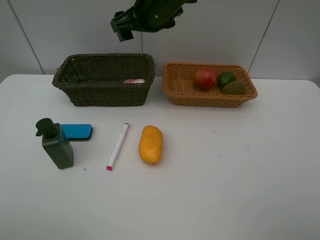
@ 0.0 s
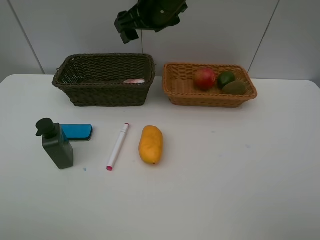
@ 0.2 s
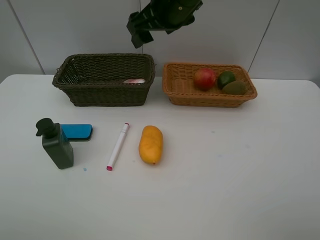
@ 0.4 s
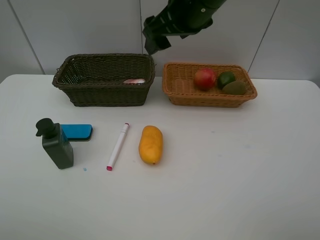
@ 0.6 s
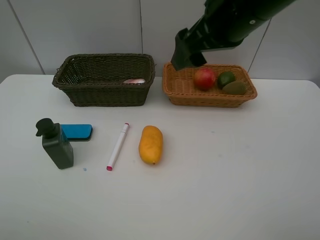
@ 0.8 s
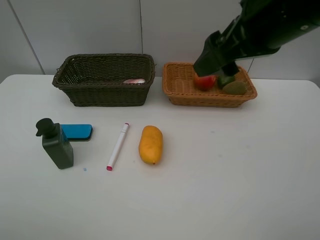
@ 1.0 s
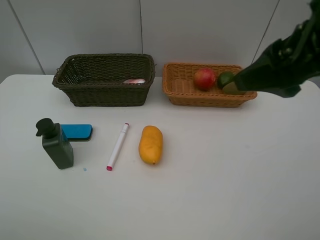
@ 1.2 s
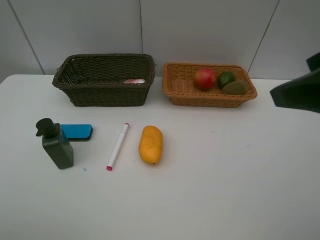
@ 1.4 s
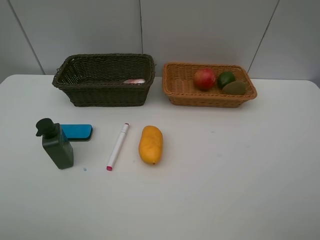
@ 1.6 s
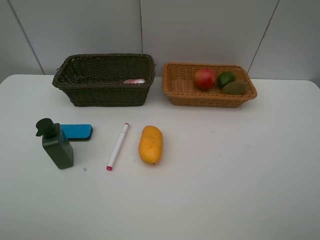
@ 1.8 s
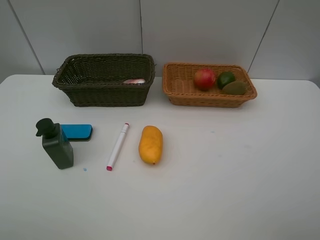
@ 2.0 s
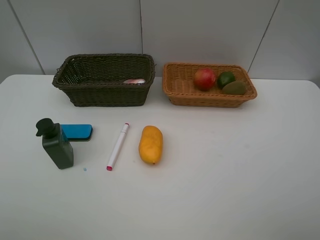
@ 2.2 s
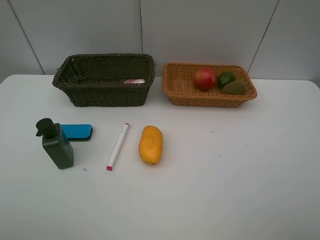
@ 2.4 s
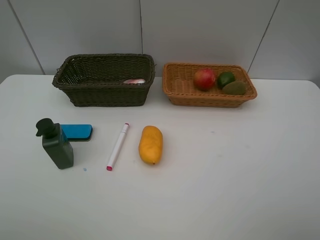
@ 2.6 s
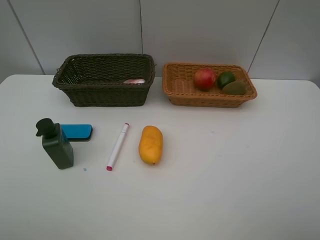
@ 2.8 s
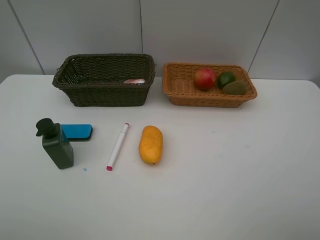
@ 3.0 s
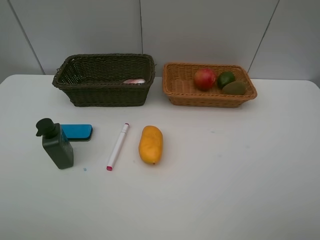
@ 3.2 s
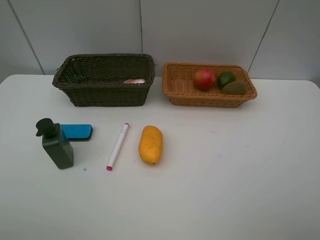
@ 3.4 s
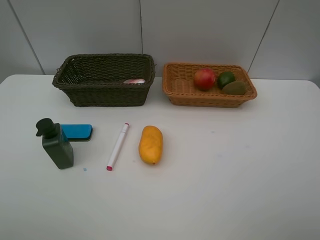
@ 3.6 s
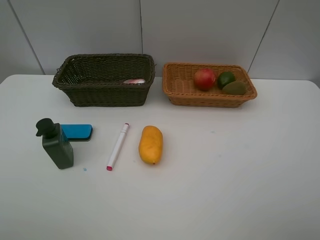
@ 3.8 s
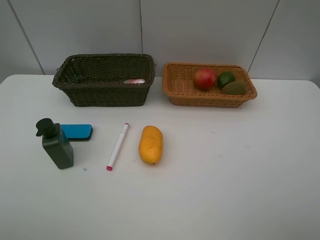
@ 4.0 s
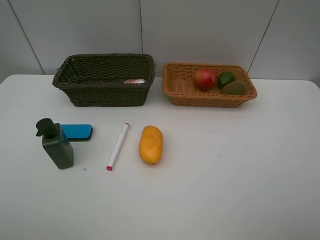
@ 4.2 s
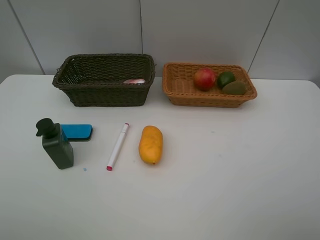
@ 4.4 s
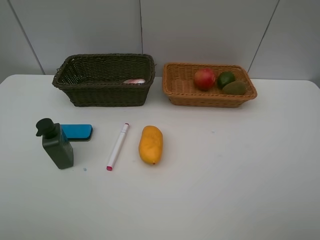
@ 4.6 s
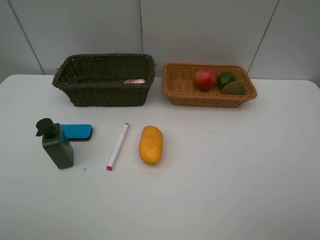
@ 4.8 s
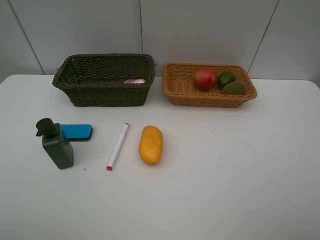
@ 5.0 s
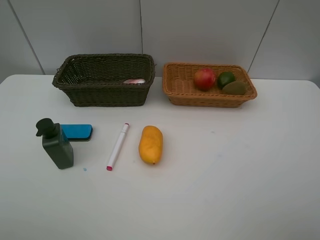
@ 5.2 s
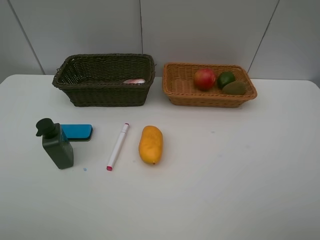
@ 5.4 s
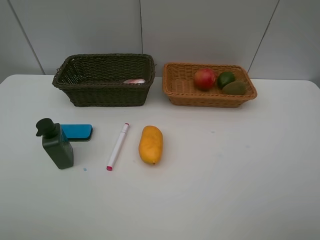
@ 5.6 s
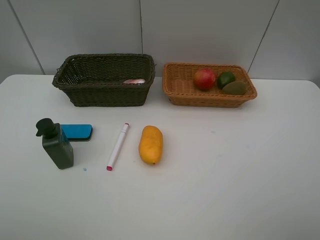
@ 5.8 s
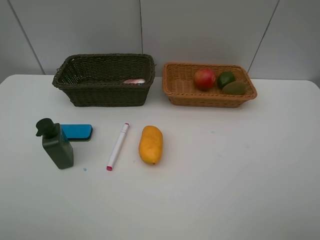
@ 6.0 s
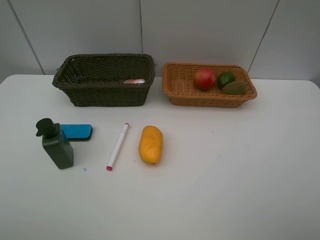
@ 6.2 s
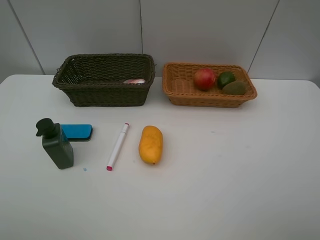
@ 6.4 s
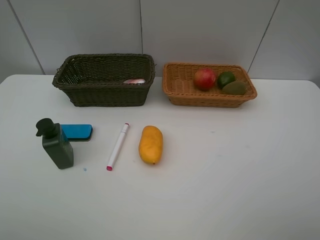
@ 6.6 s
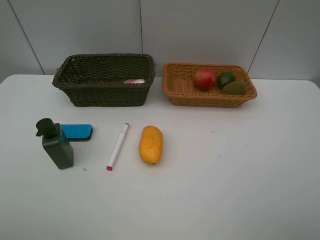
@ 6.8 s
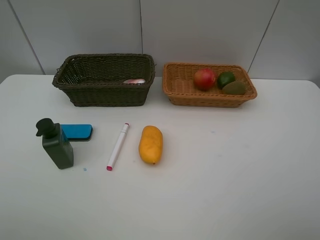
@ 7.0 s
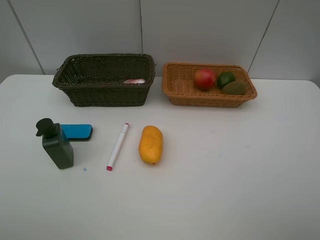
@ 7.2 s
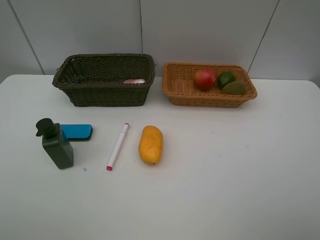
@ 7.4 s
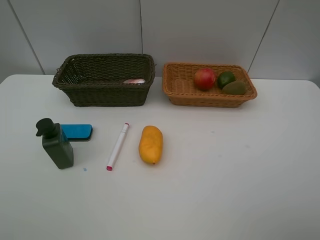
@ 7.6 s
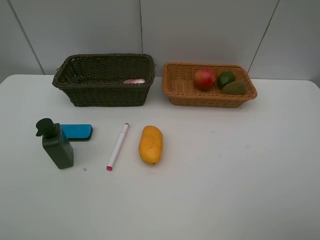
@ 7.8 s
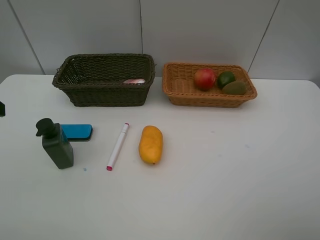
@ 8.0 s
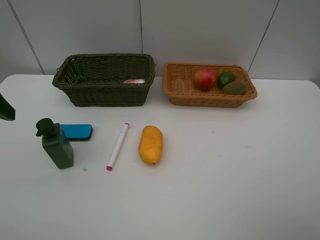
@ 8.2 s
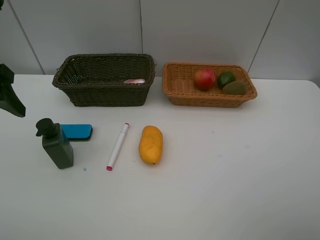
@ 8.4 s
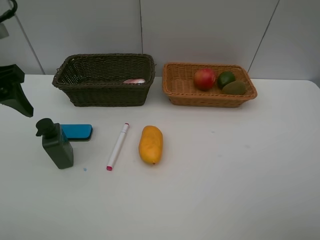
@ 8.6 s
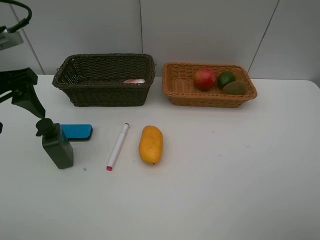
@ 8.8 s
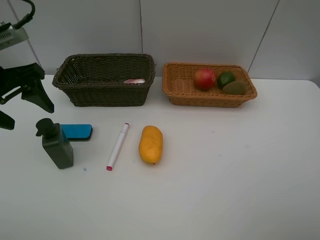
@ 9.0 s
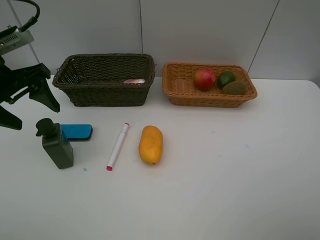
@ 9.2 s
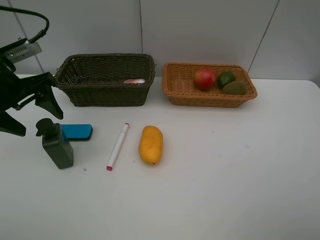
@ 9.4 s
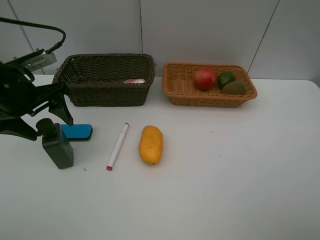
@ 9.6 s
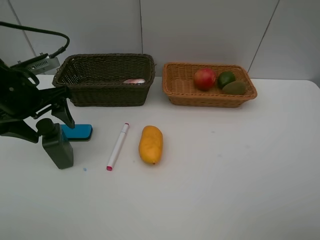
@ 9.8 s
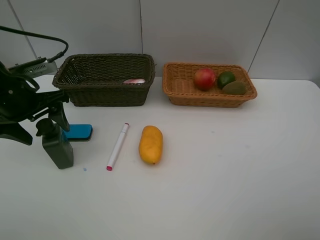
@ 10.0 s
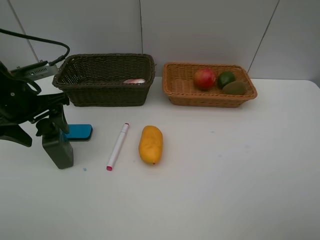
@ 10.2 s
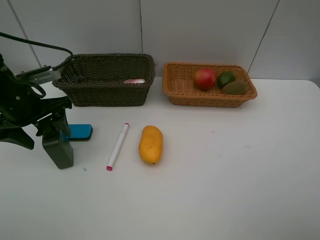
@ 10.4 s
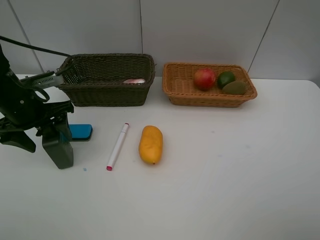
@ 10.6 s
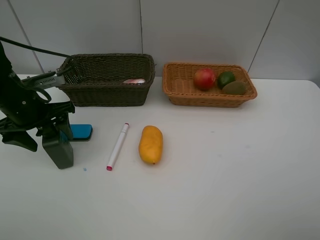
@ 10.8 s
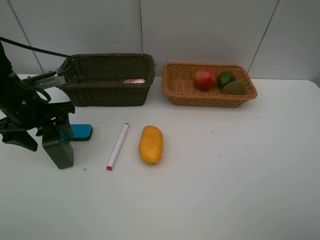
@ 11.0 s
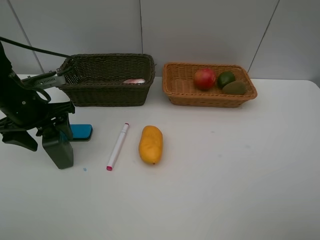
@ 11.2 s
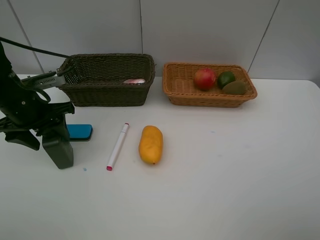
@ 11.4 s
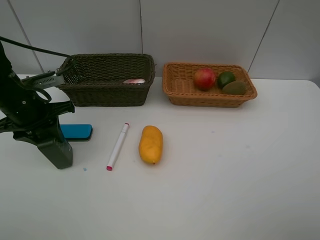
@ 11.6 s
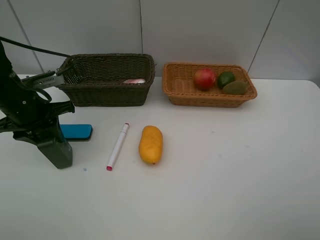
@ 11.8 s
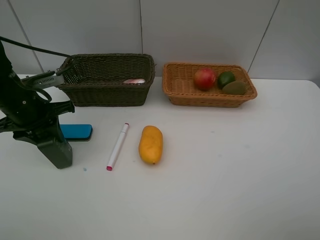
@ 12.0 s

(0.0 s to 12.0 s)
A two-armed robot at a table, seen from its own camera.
Task of the whole recording: Place multiple objects separately in different baskets.
0.0 s - 1.6 s: The right gripper is displaced backward and to the right by approximately 40 cm.
3.0 s - 6.0 s: Both grippers stay about where they are.
7.6 s - 9.0 s: The left gripper shifts about 15 cm forward and downward.
9.0 s - 10.4 s: The left gripper heads downward, covering some 10 cm.
10.4 s - 12.0 s: The left gripper closes up.

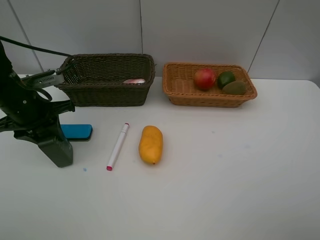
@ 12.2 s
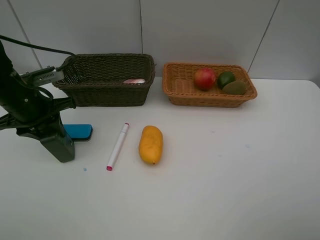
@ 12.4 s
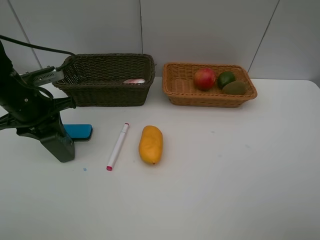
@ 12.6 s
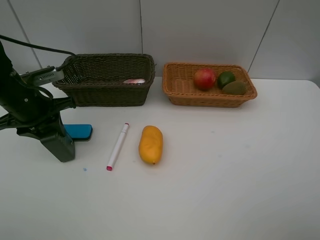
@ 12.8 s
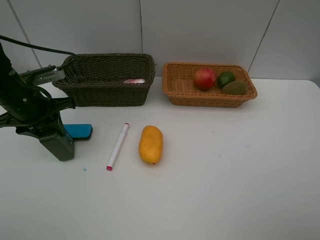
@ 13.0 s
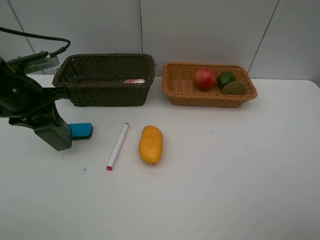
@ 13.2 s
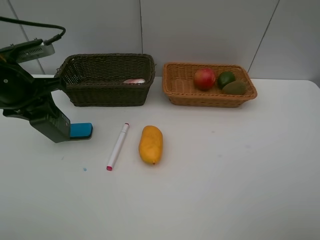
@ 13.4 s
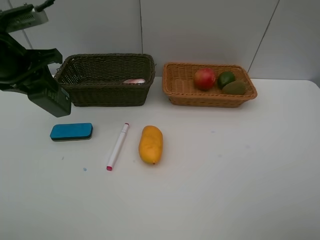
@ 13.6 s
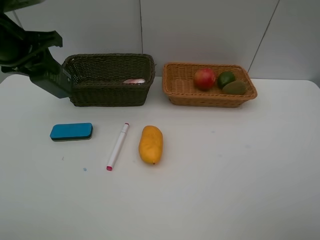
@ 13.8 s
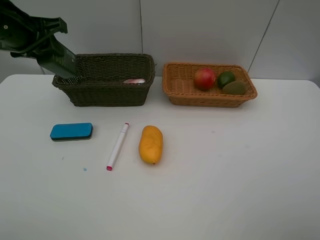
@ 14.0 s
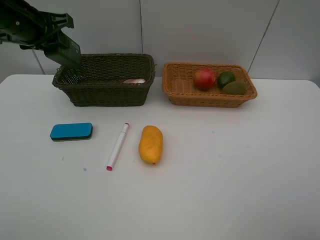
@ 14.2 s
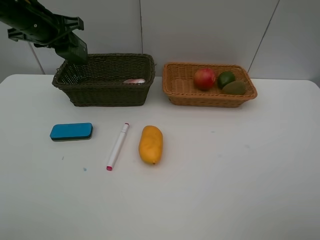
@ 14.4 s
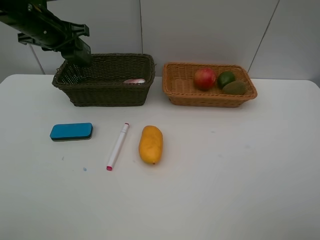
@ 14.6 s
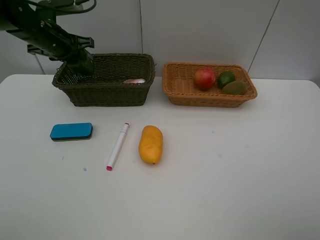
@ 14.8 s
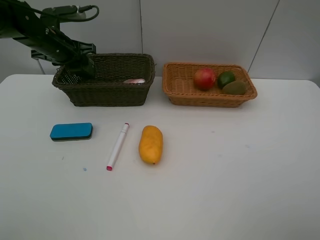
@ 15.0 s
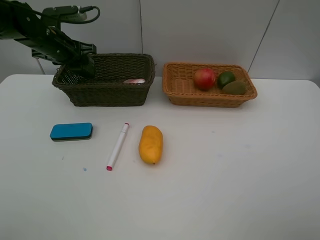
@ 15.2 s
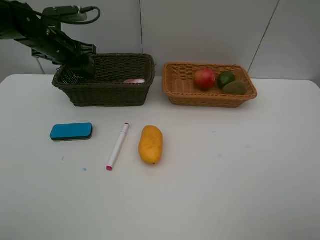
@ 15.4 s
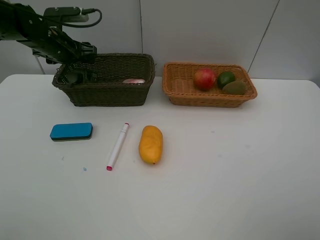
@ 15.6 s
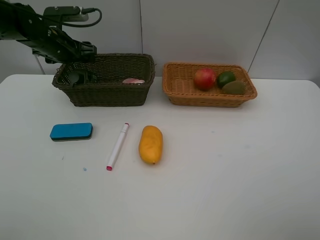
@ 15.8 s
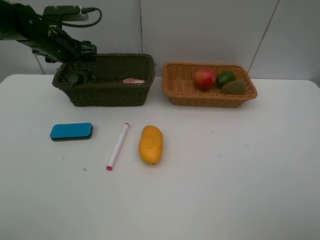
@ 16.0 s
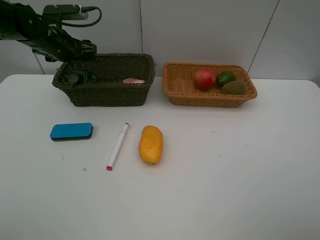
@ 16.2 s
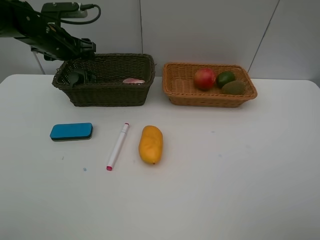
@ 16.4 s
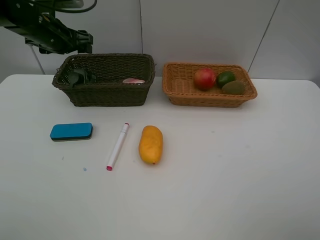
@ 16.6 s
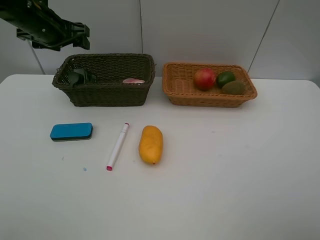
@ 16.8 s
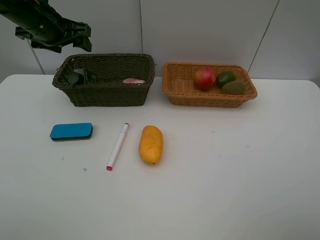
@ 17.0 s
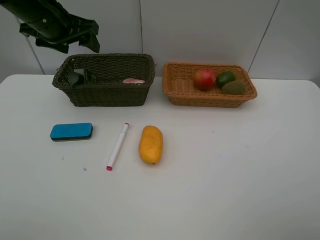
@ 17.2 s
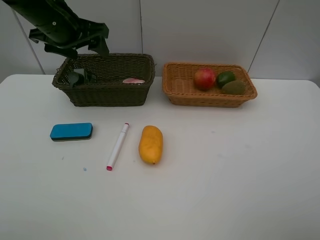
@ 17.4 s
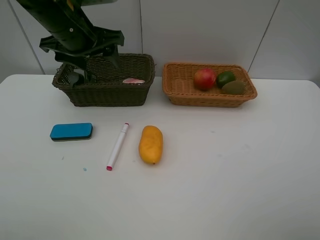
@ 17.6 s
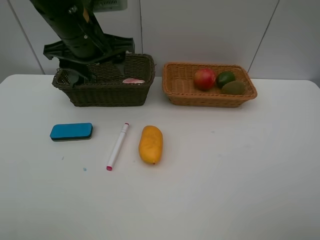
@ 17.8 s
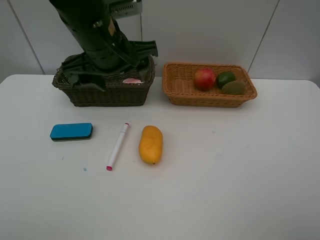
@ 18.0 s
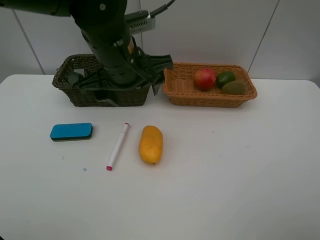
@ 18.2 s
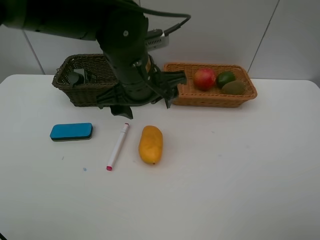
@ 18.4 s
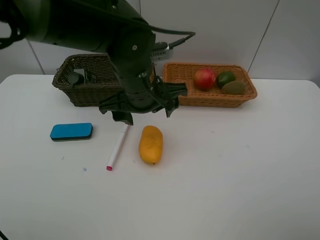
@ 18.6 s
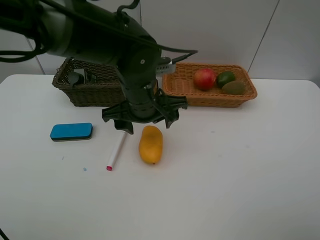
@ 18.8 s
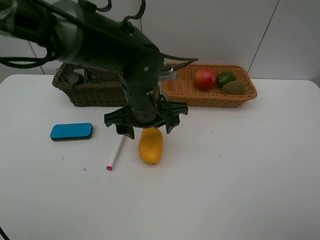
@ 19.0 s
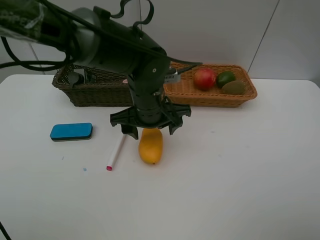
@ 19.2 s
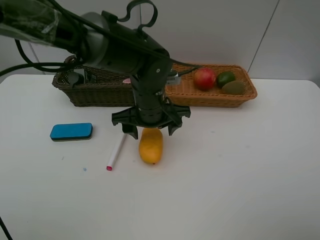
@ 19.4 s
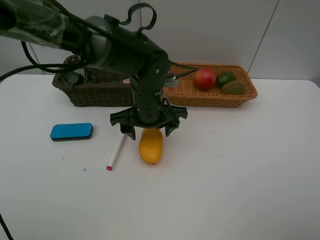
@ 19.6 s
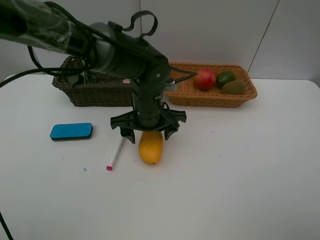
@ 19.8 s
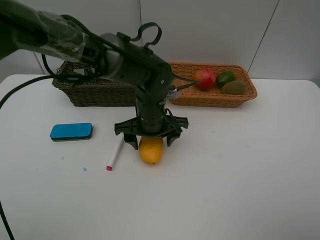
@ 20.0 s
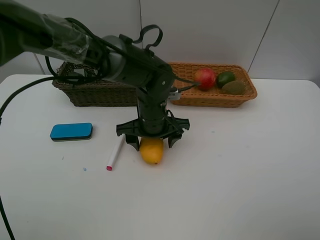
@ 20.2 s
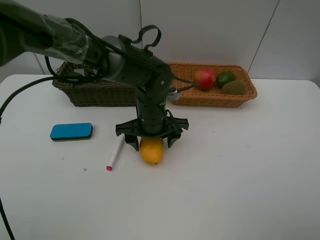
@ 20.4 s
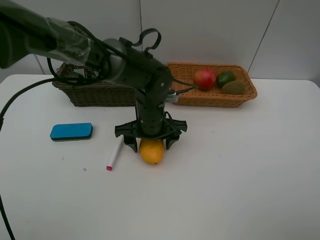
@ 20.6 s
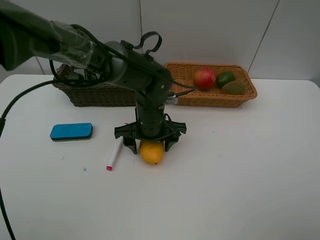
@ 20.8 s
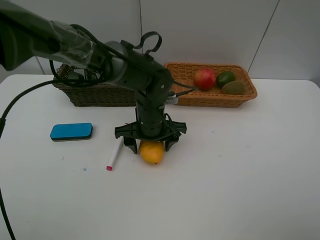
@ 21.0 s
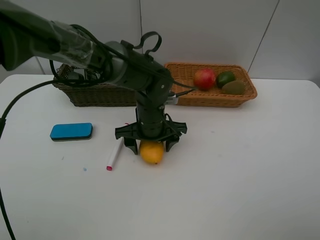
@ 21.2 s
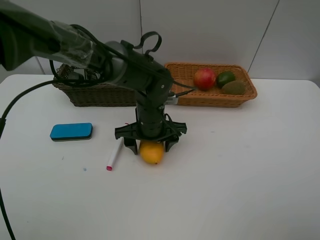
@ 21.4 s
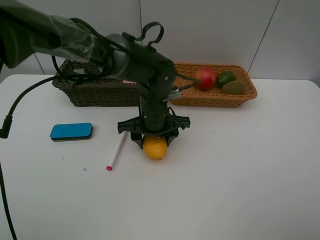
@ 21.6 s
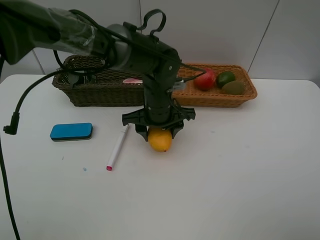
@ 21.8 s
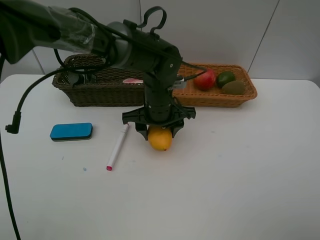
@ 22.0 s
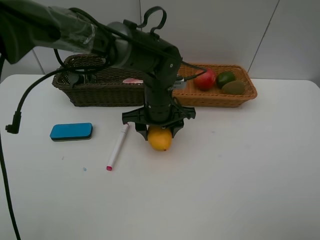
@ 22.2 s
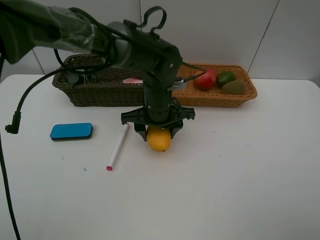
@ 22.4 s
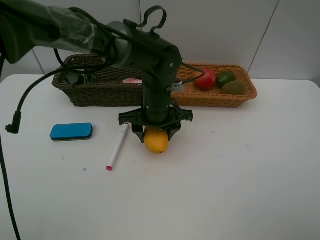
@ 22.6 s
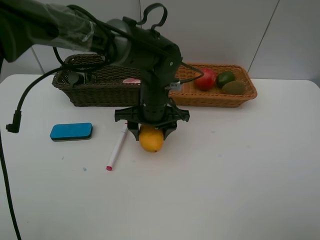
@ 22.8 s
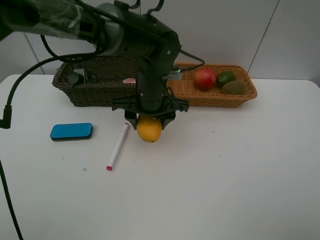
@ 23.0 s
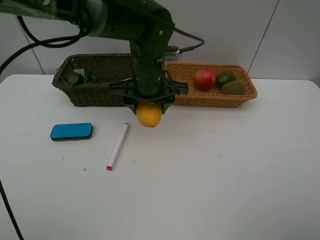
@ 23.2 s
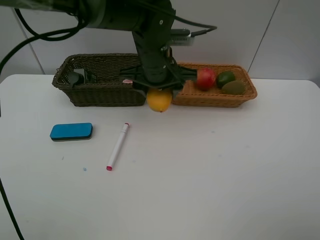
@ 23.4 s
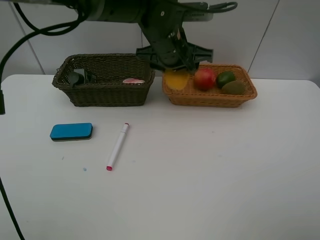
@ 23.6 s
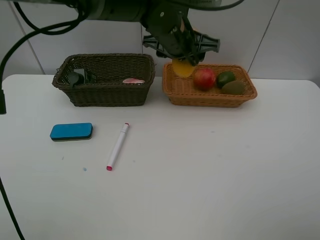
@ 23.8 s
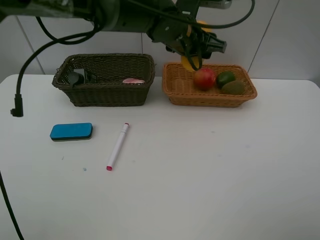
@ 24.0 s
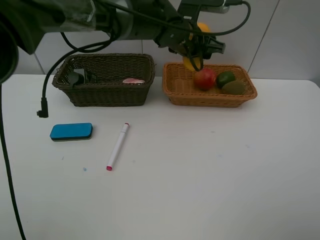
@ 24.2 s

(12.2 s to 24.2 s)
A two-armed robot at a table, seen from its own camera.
Task of the whole recording: Place multiple objects separately in different baskets.
Step, 13.4 s - 16.2 s: Place the hard facial cleanser in the dark basket with left gripper.
Step, 16.4 s - 22.6 s: Pick up mango with left gripper.
12.2 s - 13.8 s: The left gripper shifts about 10 cm upward.
13.8 s - 15.2 s: The left gripper travels forward and downward by approximately 15 cm.
15.2 s - 16.6 s: The left gripper opens.
16.6 s - 18.2 s: The left gripper heads to the right and backward, covering some 25 cm.
18.2 s - 19.8 s: The left gripper is displaced downward by approximately 10 cm.
19.8 s - 22.6 s: The grippers stay close to where they were, moving slightly.
22.6 s - 24.2 s: The left gripper goes approximately 15 cm forward and upward.
